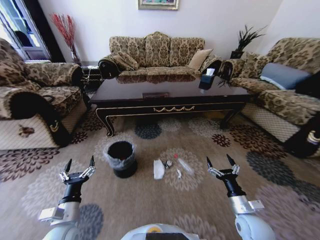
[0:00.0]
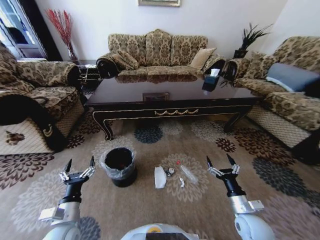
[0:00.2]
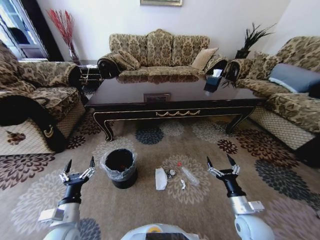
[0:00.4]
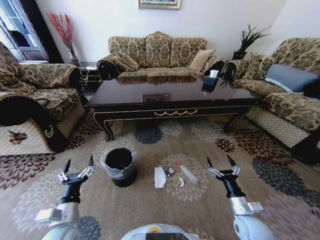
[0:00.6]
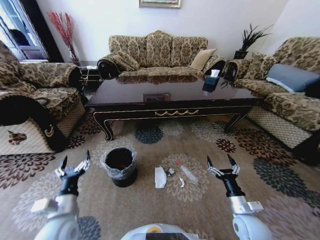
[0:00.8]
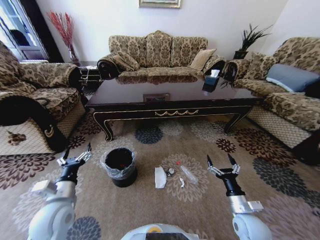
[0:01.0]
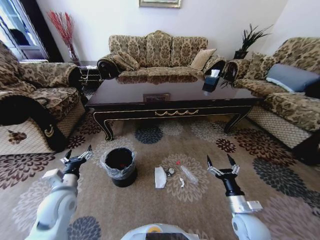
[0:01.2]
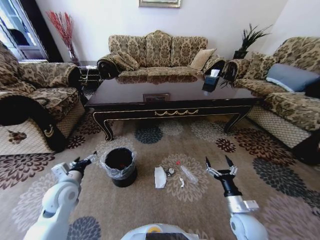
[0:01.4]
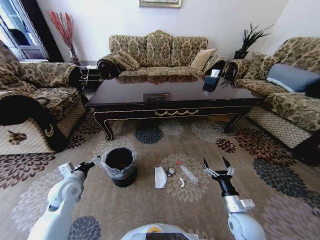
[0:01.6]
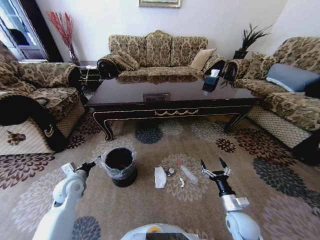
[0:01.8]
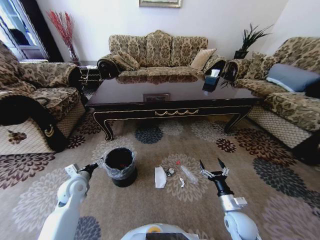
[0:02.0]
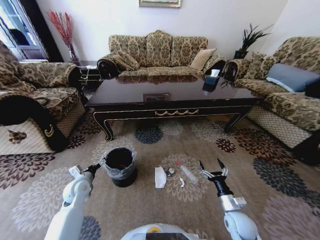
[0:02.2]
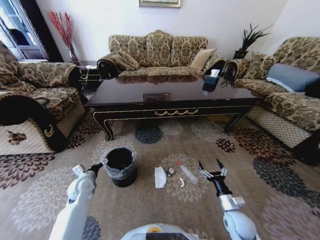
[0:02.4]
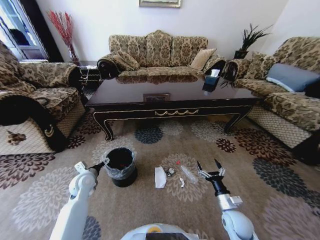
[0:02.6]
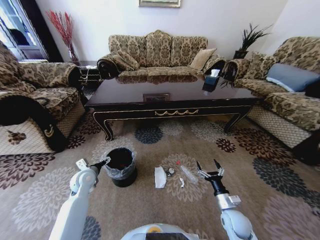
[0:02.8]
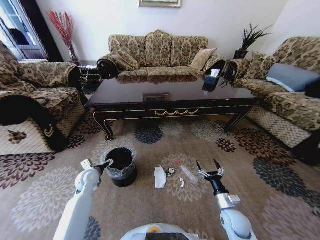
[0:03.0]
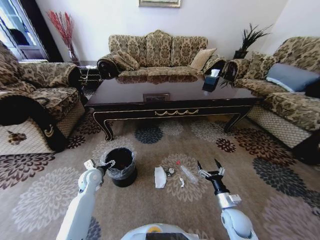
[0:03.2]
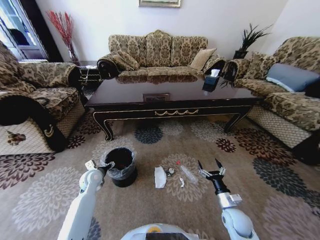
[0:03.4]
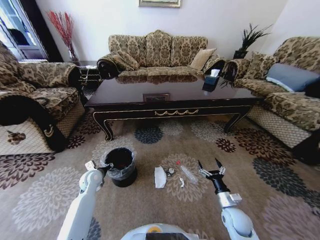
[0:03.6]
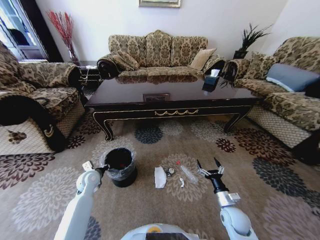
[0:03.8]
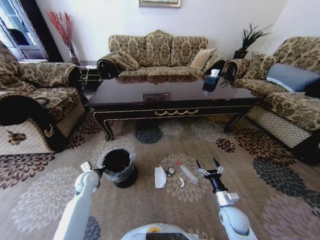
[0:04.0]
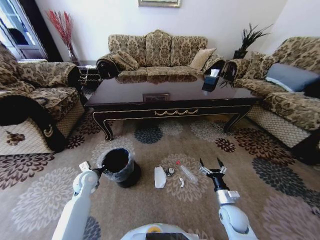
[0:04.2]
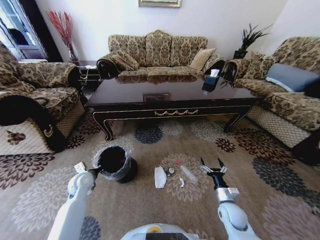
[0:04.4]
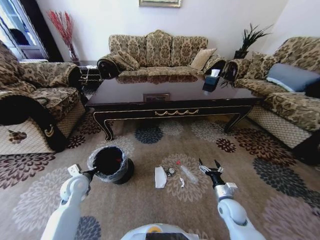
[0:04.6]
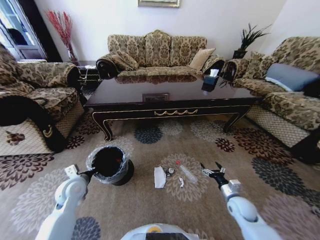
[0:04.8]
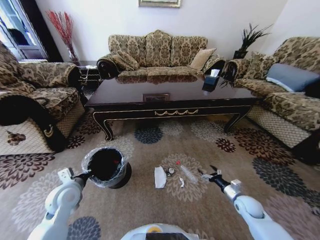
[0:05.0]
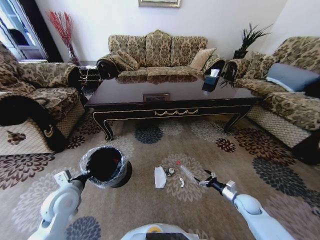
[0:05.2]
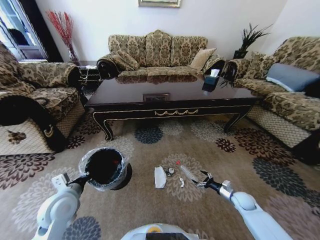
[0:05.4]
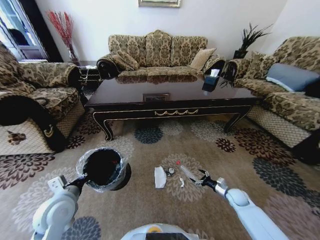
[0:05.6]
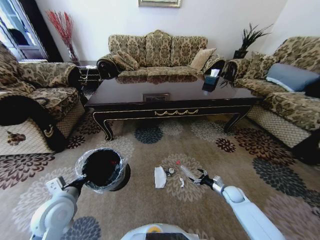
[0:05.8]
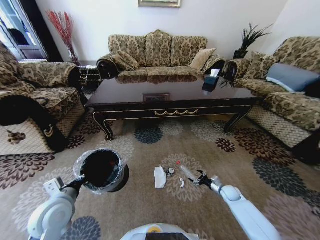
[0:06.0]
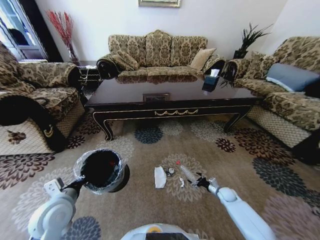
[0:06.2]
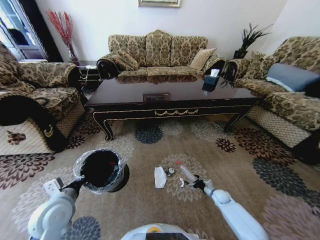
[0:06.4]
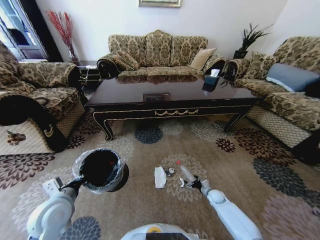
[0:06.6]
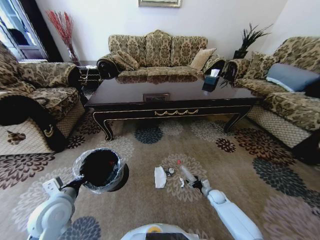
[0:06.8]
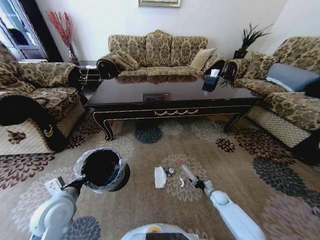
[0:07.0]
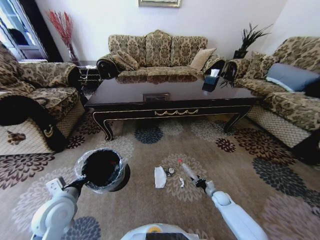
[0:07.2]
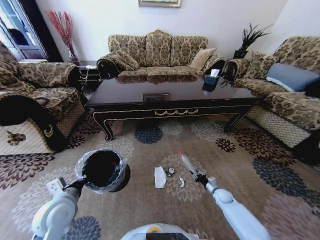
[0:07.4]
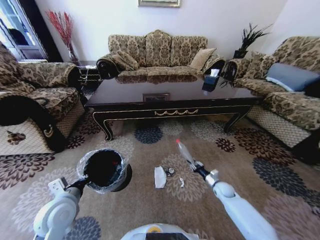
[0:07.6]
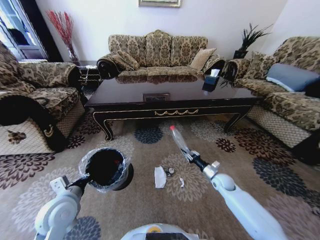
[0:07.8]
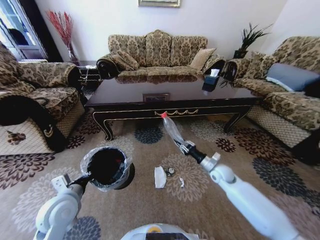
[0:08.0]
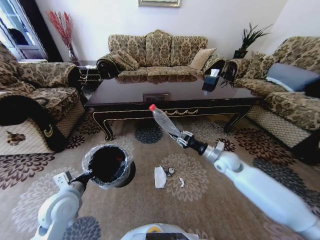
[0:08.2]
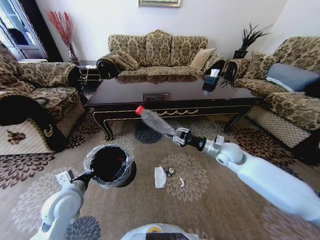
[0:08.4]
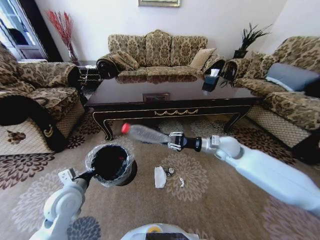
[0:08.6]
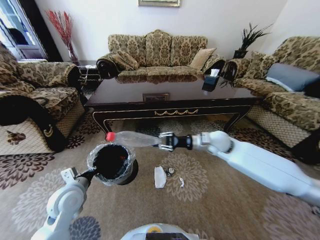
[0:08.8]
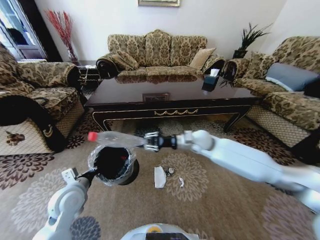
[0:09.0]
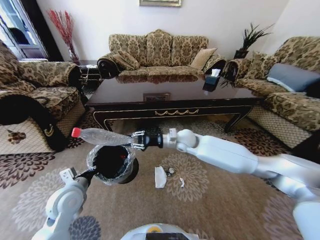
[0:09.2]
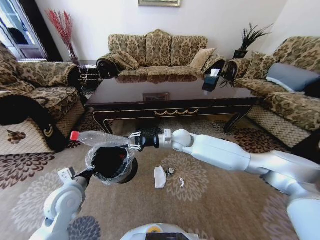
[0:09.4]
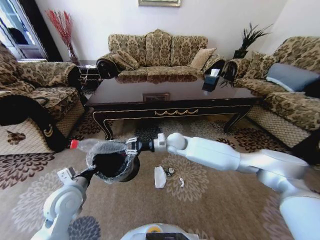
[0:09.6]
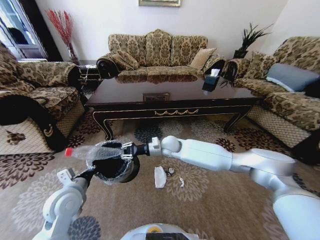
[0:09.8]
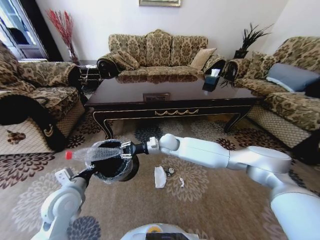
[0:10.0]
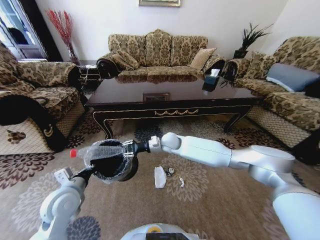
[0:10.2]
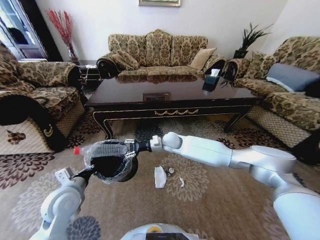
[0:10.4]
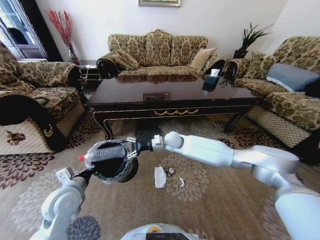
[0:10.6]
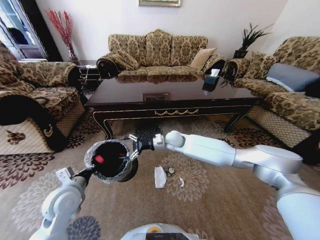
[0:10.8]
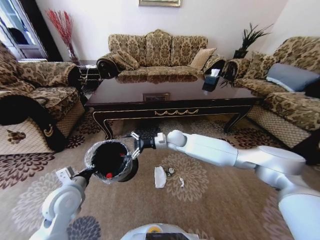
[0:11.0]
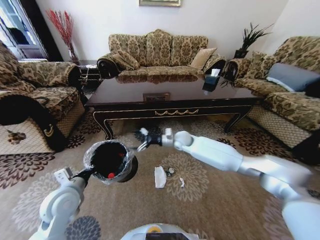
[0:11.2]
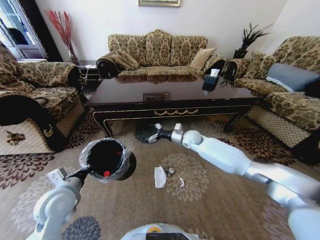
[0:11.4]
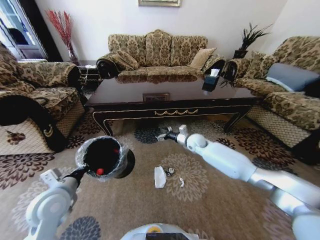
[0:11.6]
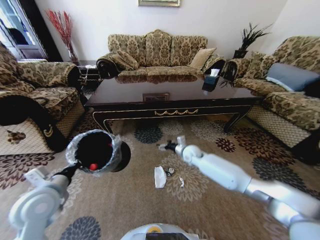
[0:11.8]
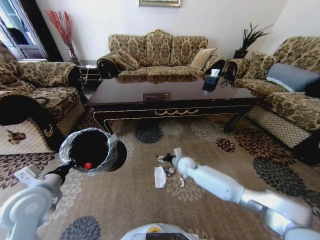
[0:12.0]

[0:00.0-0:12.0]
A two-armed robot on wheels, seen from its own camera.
Task of the whole recording: Move to the front of the table and pick up the trash from the floor, then place it into the trash bin.
0:00.0 to 0:01.6: The left gripper moves forward, approximately 15 cm.
0:01.6 to 0:03.0: The left gripper is displaced forward and downward by some 10 cm.
0:03.0 to 0:04.4: The left gripper closes.
0:04.4 to 0:06.0: The left gripper goes some 15 cm backward and upward. Meanwhile the right gripper moves forward, to the right and downward, approximately 20 cm.
0:06.0 to 0:07.6: The right gripper closes up.
0:07.6 to 0:09.0: The right gripper shifts roughly 35 cm upward and to the left.
0:09.0 to 0:10.4: The right gripper moves to the left and downward, some 15 cm.
0:10.4 to 0:12.0: The left gripper is displaced upward by about 5 cm, while the right gripper travels downward and to the right by roughly 15 cm, and opens.

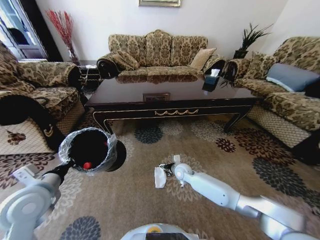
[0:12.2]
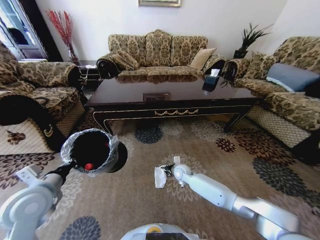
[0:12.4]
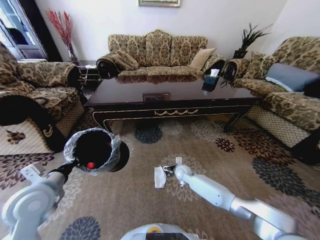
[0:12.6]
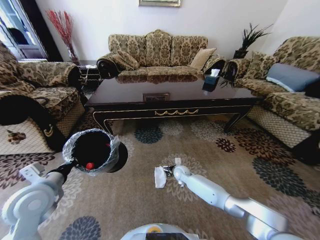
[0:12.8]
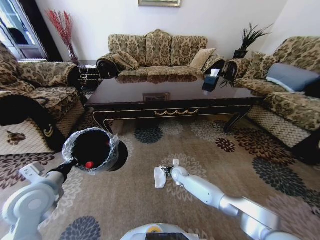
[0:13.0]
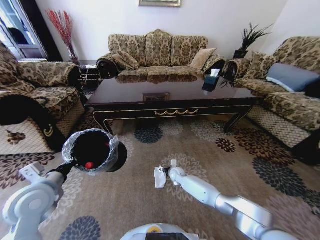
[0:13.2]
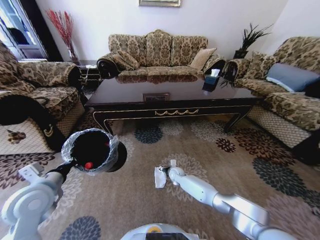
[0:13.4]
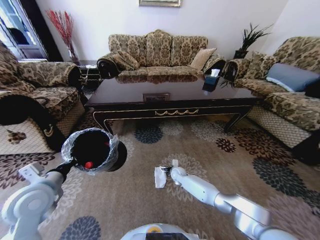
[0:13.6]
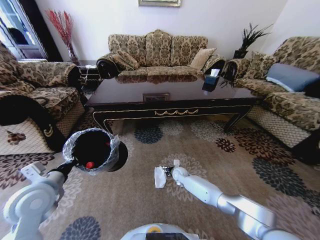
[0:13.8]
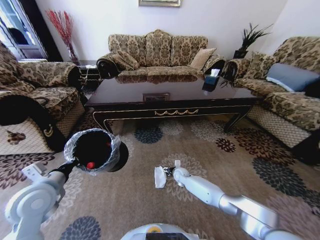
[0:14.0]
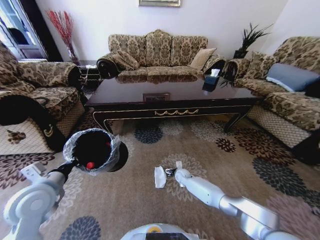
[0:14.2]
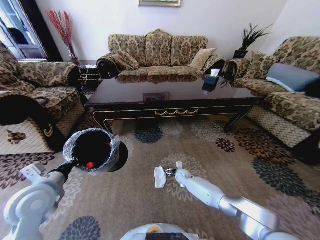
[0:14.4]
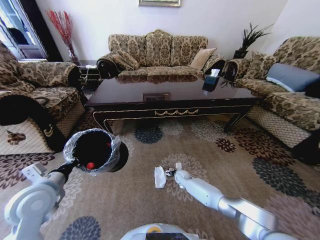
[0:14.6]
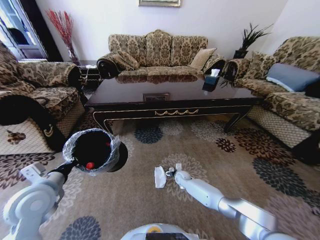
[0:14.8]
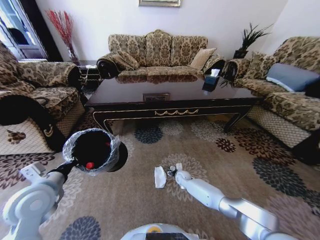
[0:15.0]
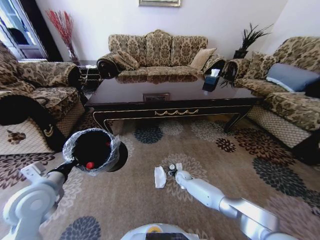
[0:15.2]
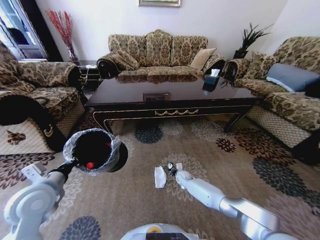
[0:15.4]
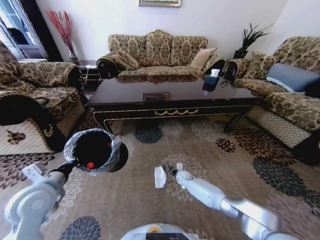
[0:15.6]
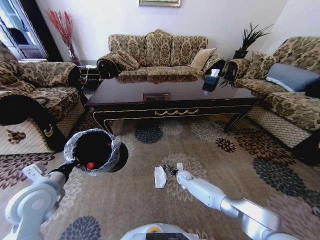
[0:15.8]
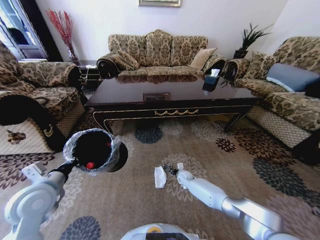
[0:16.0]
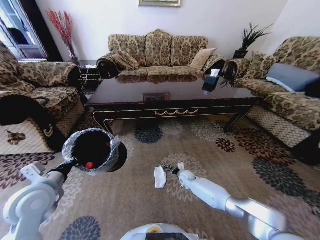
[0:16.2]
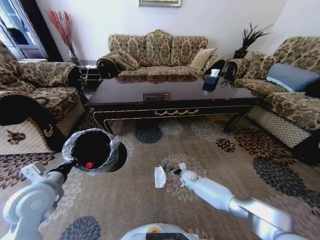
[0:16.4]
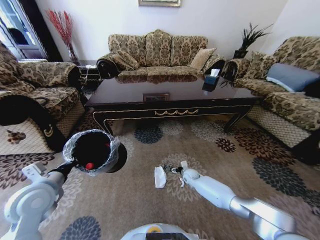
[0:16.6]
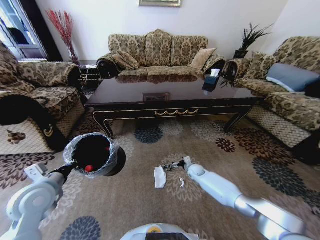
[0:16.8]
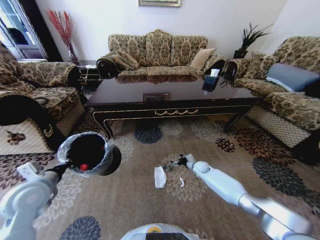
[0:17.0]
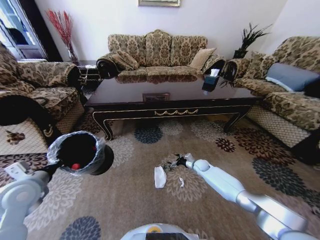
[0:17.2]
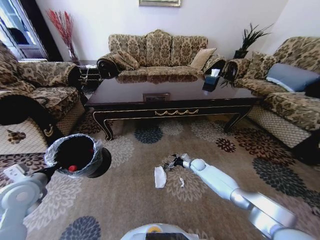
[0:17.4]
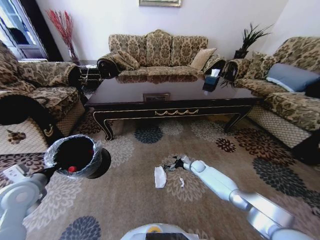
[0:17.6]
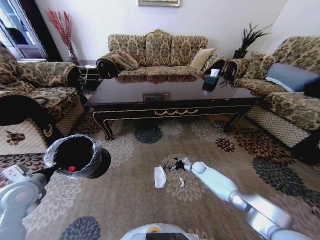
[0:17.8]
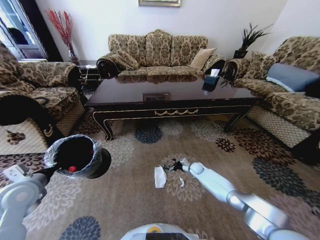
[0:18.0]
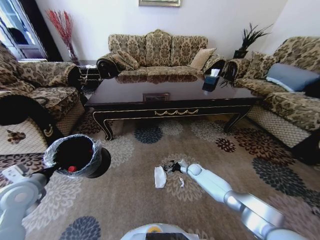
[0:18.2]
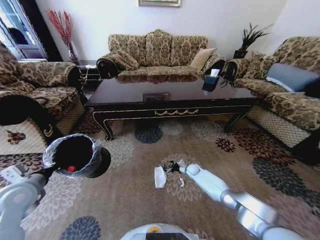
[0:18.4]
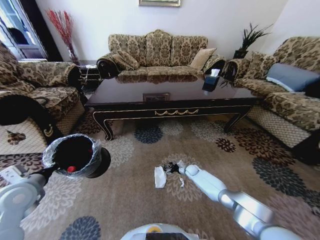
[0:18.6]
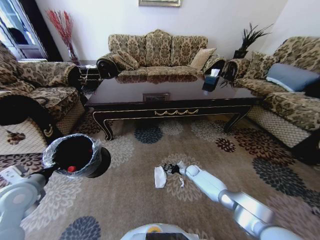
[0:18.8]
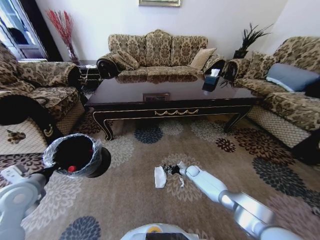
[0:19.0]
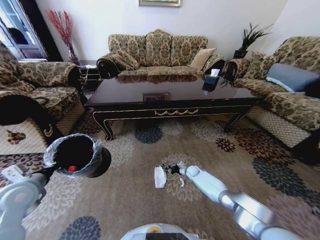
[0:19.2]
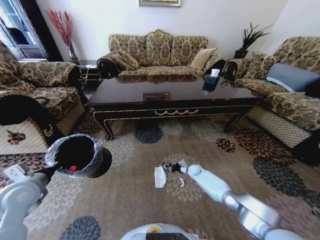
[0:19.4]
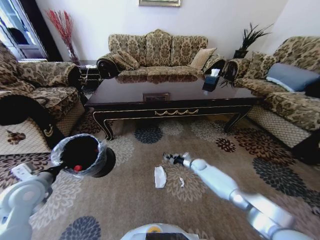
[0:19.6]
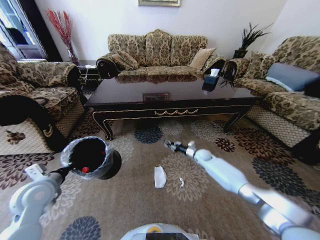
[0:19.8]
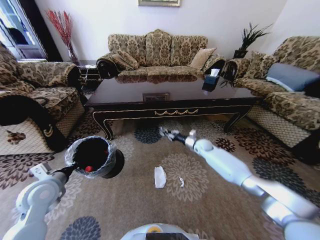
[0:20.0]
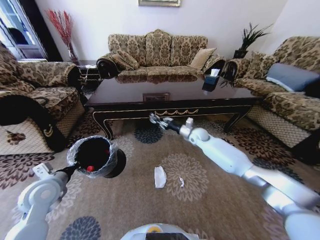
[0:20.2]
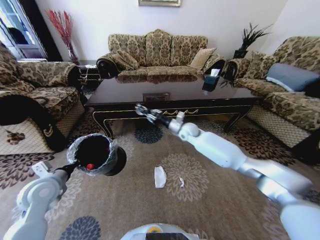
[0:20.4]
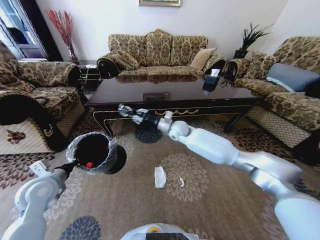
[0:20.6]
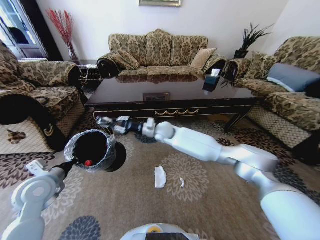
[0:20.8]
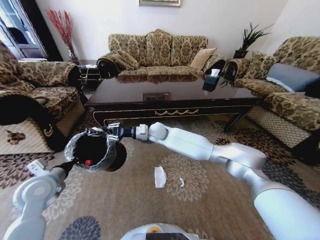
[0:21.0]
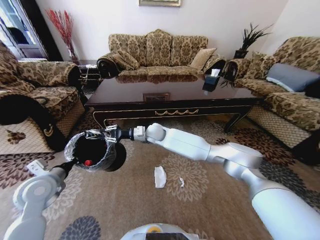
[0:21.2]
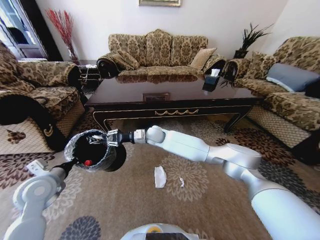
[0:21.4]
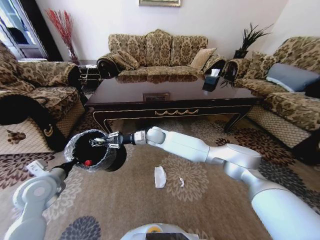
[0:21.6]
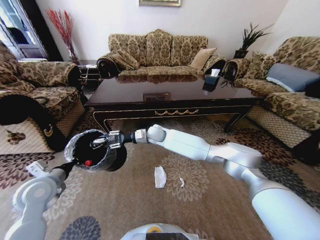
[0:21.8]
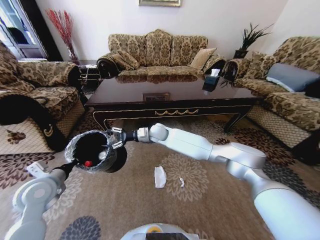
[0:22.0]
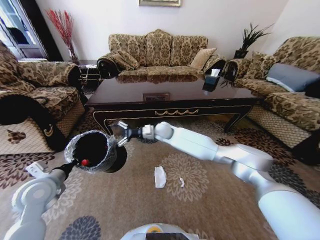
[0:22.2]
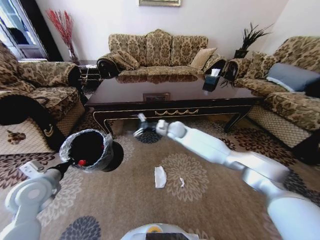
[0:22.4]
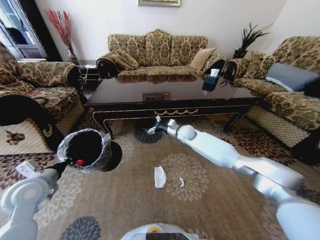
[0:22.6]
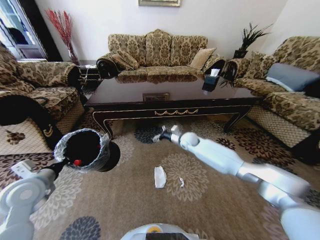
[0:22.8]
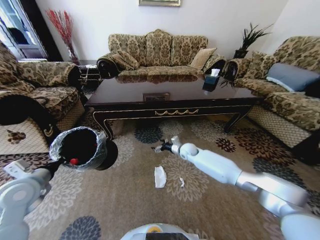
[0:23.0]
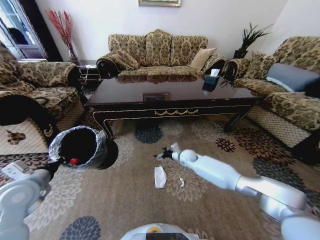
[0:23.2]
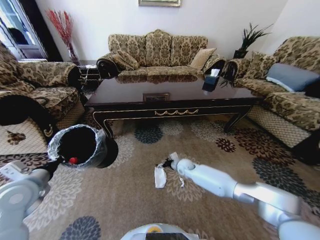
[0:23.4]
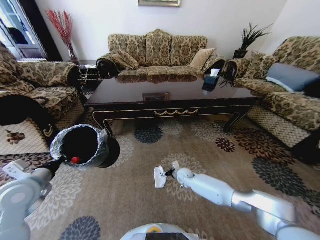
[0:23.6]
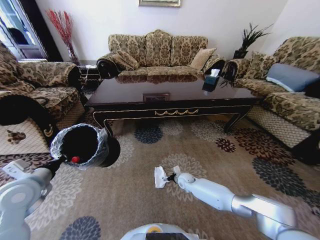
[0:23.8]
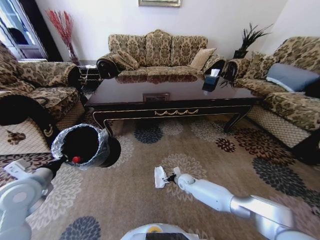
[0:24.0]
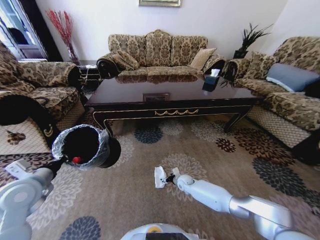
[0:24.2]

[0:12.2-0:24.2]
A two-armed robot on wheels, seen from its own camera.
Task of the whole recording: Move to the front of the table and pick up the trash from the floor, then place it into the trash bin.
0:12.2 to 0:13.8: The right gripper travels downward by some 10 cm.
0:13.8 to 0:15.2: The right gripper closes up.
0:15.2 to 0:16.6: The right gripper opens.
0:16.6 to 0:18.2: The left gripper shifts about 5 cm to the left.
0:18.2 to 0:19.8: The right gripper travels upward by roughly 10 cm, and closes.
0:19.8 to 0:21.2: The right gripper shifts about 40 cm to the left and upward.
0:21.2 to 0:22.6: The right gripper heads to the right, covering roughly 20 cm, and opens up.
0:22.6 to 0:24.2: The right gripper travels downward and backward by approximately 30 cm.
